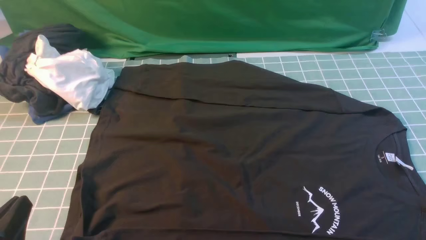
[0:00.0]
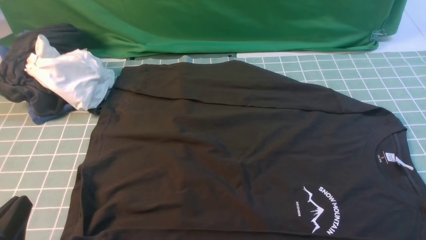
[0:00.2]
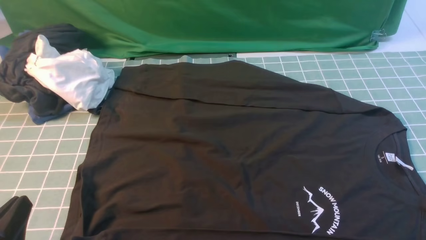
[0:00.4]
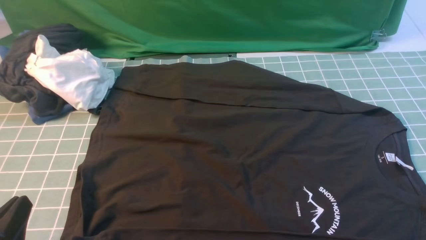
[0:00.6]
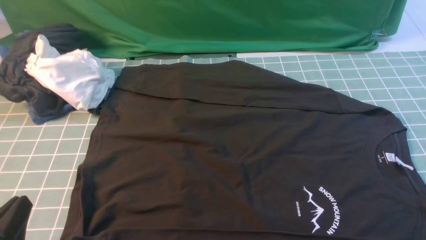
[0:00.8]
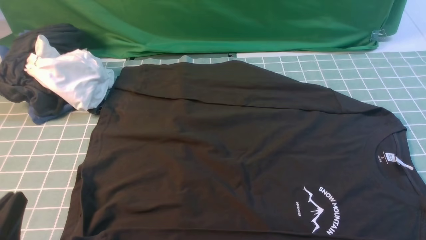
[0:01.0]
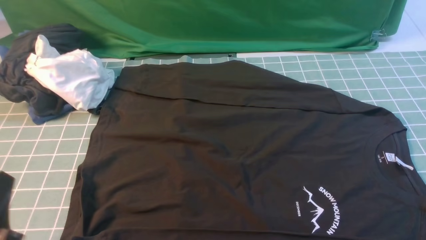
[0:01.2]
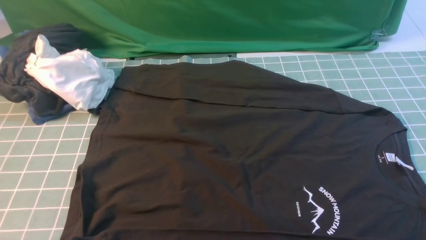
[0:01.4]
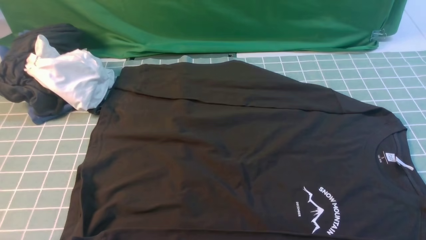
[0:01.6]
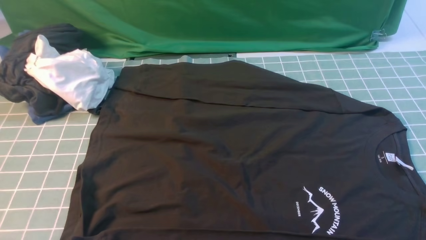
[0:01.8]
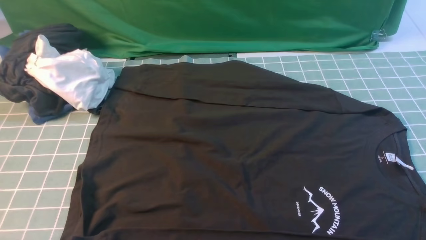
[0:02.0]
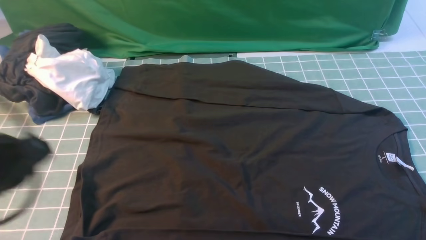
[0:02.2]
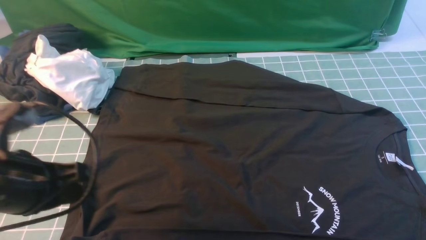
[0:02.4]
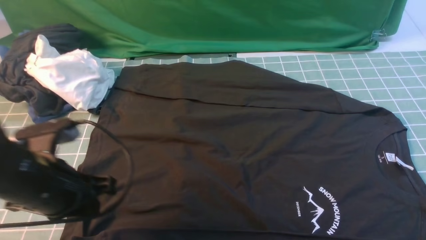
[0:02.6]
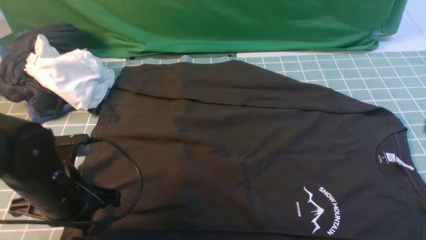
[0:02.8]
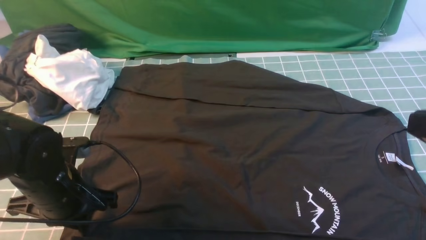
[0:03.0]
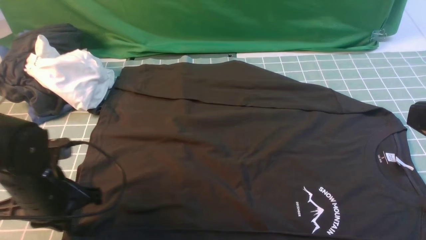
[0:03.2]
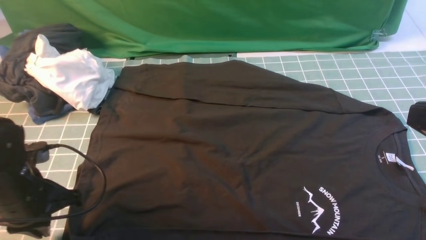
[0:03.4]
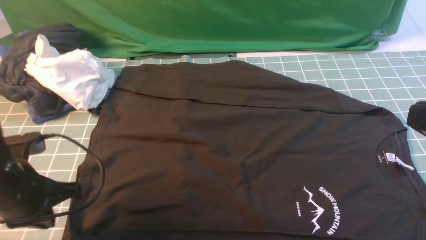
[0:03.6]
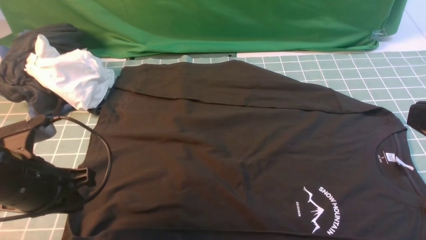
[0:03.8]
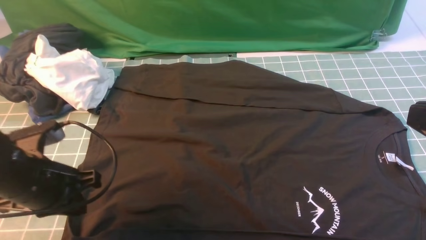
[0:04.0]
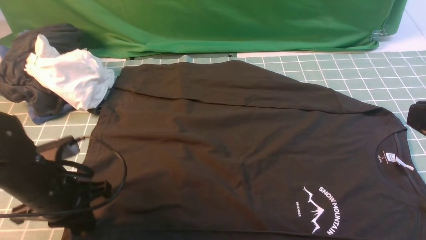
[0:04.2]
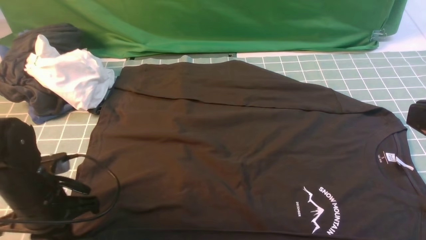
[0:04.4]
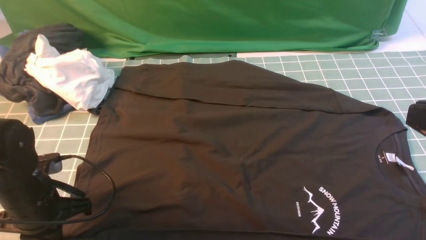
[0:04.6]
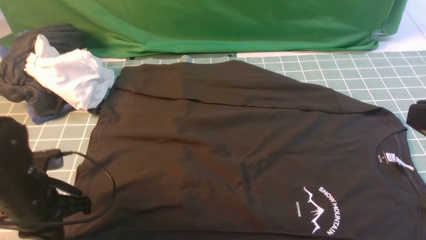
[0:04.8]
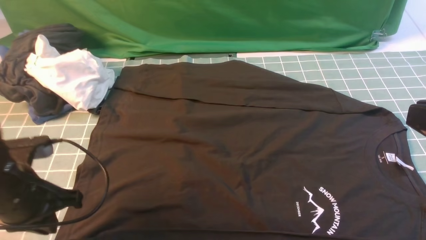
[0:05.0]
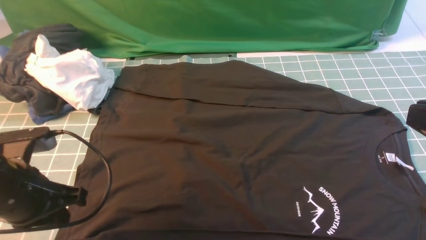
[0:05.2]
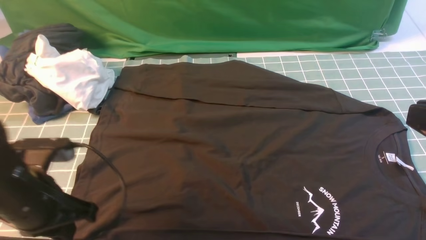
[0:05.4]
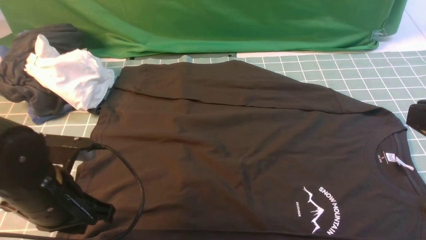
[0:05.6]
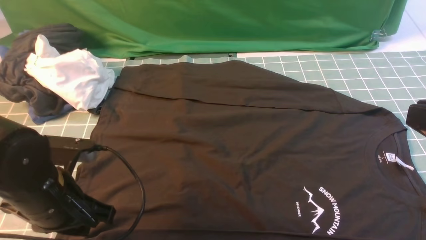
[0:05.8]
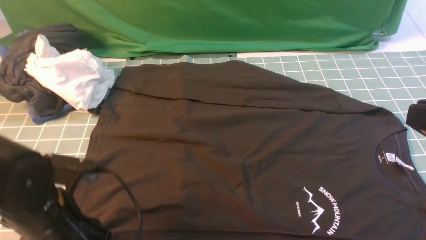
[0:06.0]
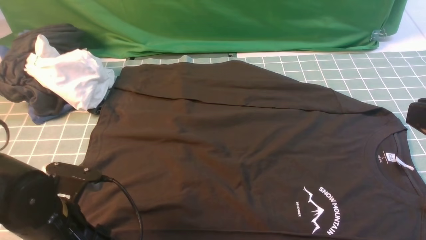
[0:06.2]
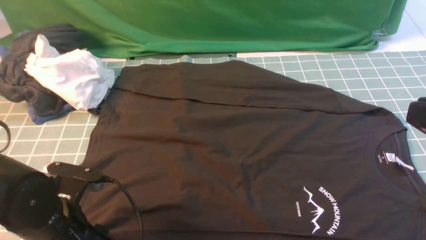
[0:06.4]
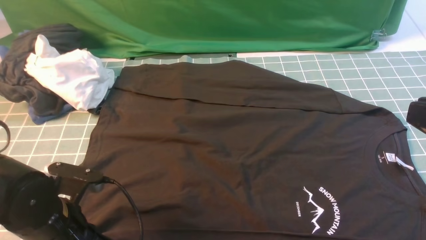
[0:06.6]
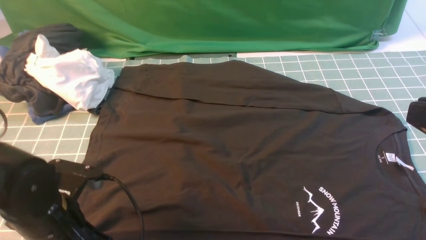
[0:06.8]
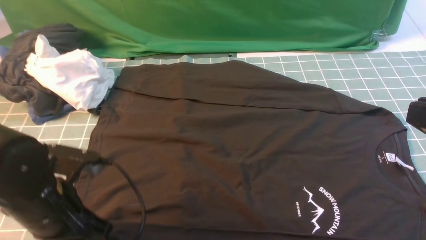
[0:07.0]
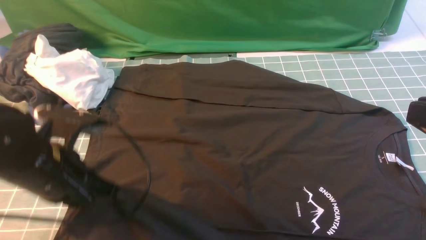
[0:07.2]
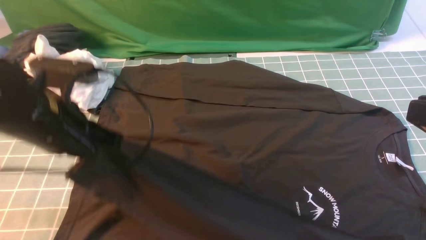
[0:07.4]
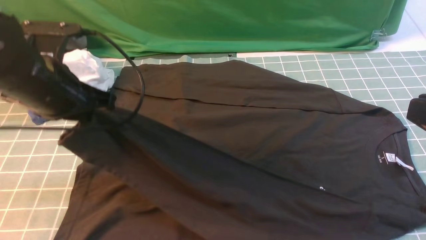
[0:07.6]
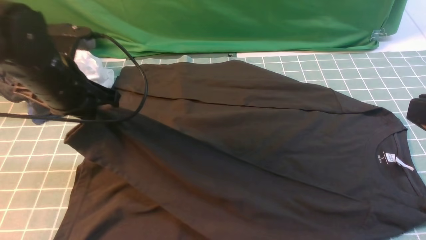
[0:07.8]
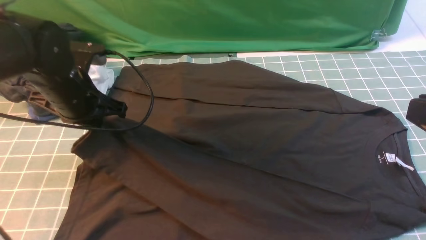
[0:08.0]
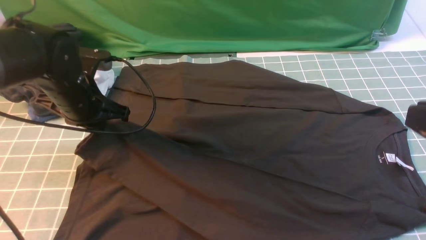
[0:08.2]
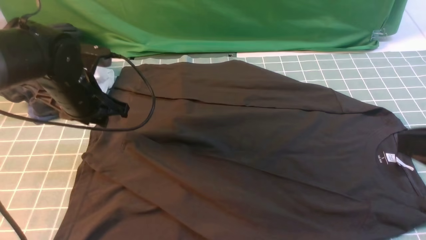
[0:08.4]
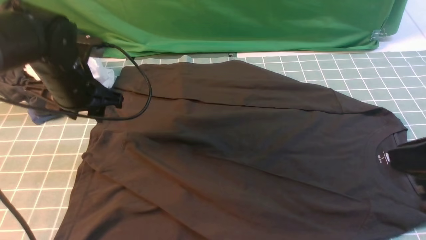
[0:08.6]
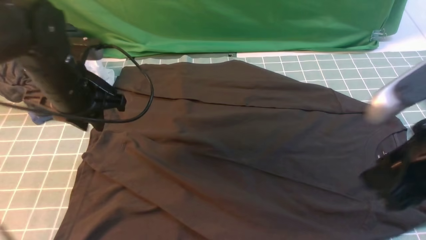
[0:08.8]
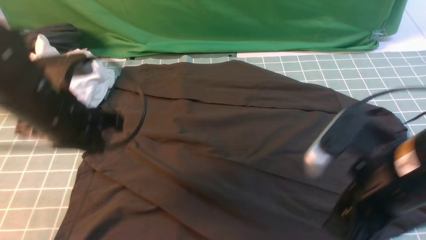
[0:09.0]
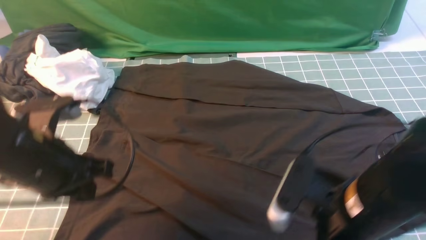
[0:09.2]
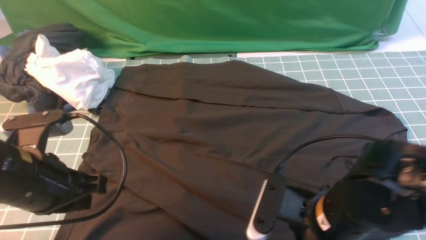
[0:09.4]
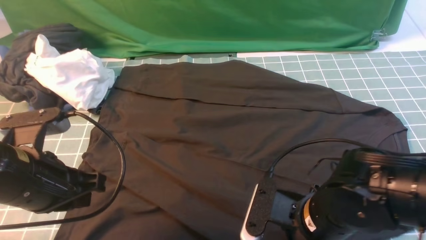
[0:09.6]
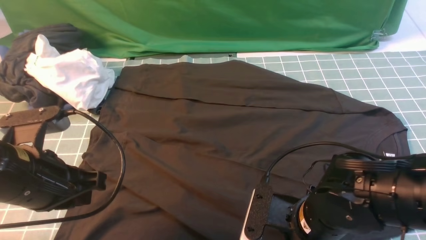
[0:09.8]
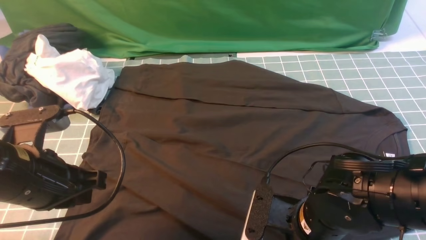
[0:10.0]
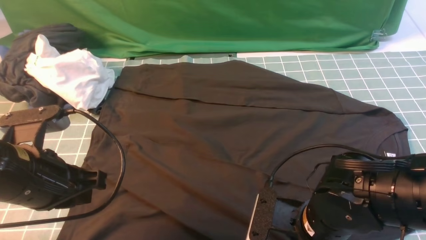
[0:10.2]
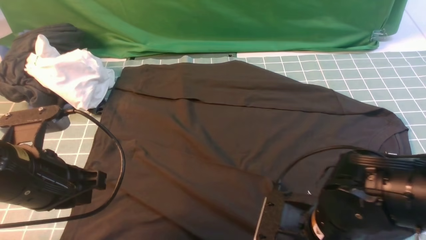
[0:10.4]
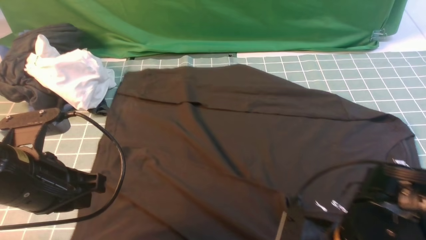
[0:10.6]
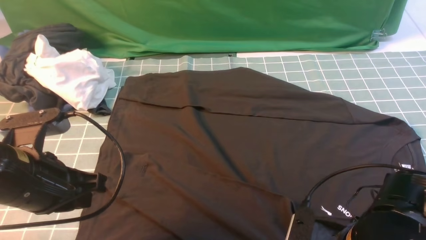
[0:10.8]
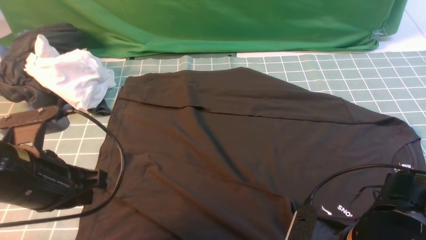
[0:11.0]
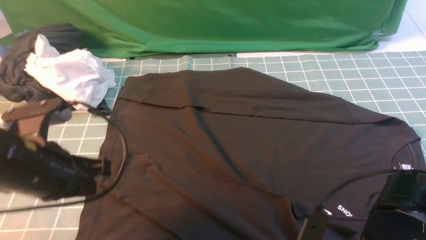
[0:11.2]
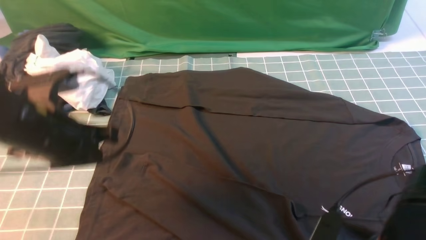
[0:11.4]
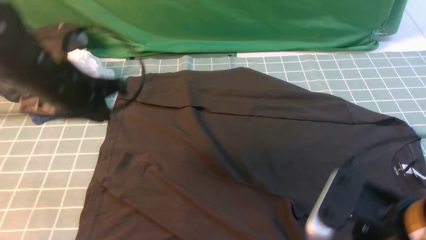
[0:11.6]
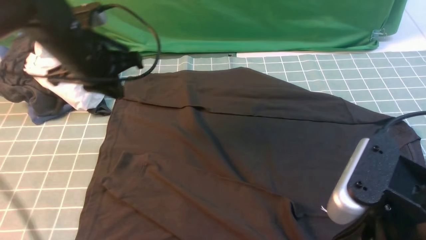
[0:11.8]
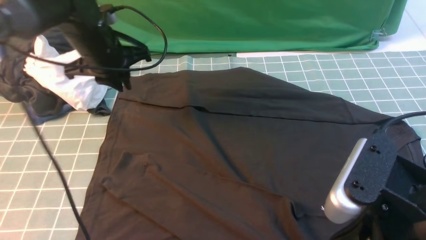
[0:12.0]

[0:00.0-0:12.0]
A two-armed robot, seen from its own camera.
Step, 0.0 to 7.0 s: use the left arm to clamp the cuff closest to it.
Step, 7.2 to 8.6 s: use the left arm to drag and place the cuff at the centered position on the left edge of the fabric.
0.0 to 1.6 s: The left gripper goes approximately 5 cm upward.
1.6 to 3.0 s: The left gripper goes roughly 20 cm forward and downward, while the right gripper travels upward and to the left by some 15 cm, and closes.
3.0 to 4.4 s: There are only small adjustments of the grippers.
4.4 to 6.0 s: The left gripper moves about 5 cm, and opens up.
6.0 to 7.6 s: The left gripper heads upward and forward, covering roughly 15 cm, and closes up.
7.6 to 9.0 s: The right gripper goes roughly 15 cm downward, to the left and forward, and opens up. Meanwhile the left gripper goes forward and returns, approximately 5 cm each way, and opens and closes again.
9.0 to 10.4 s: The right gripper goes some 10 cm downward, and closes, while the left gripper shifts roughly 5 cm backward.
10.4 to 12.0 s: The left gripper is displaced forward by roughly 25 cm. The right gripper heads upward, covering some 15 cm, and opens, then closes again.

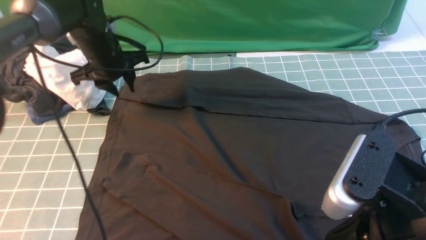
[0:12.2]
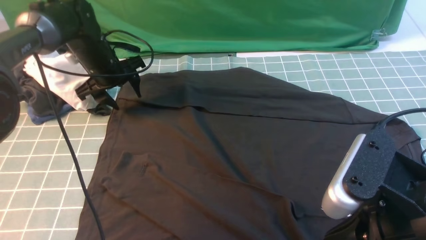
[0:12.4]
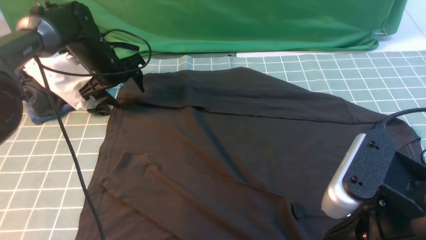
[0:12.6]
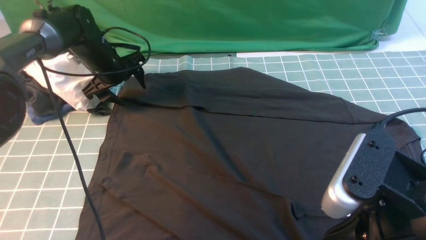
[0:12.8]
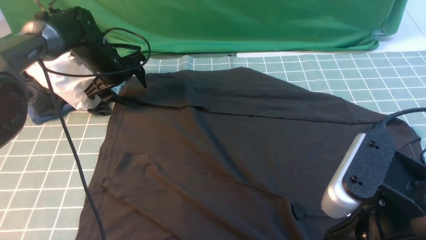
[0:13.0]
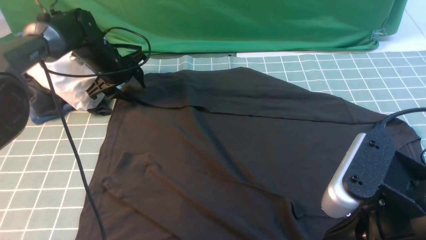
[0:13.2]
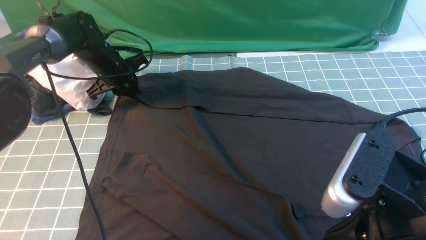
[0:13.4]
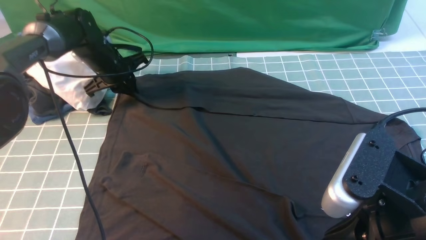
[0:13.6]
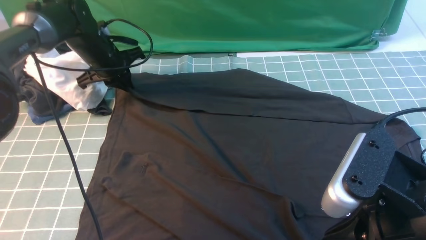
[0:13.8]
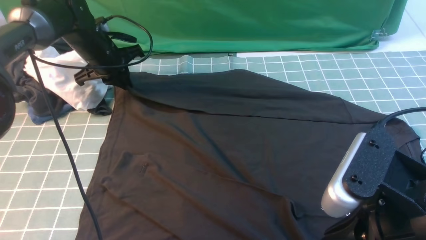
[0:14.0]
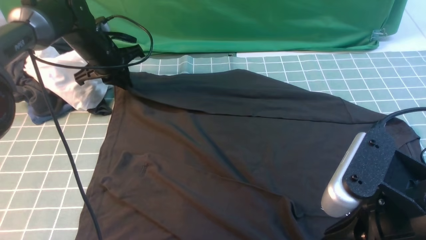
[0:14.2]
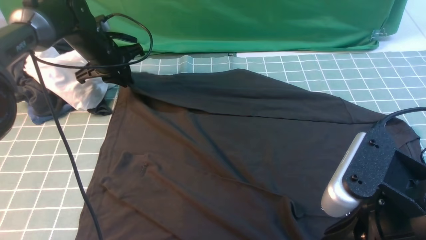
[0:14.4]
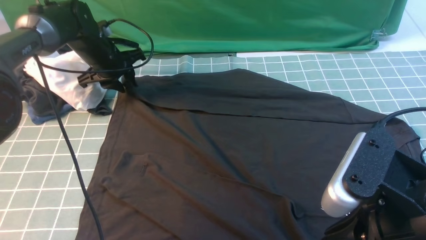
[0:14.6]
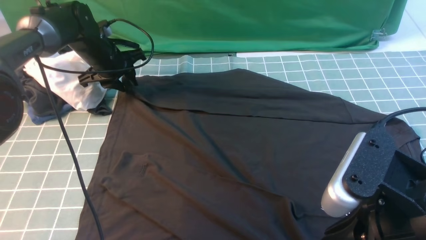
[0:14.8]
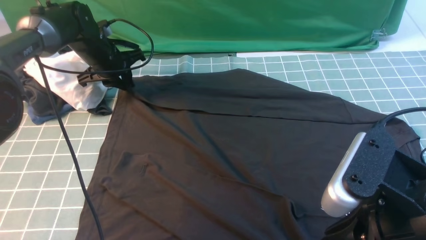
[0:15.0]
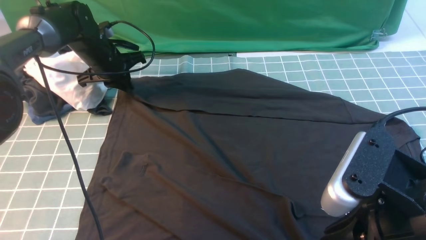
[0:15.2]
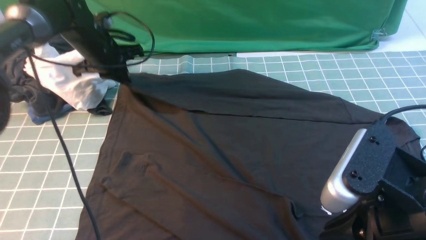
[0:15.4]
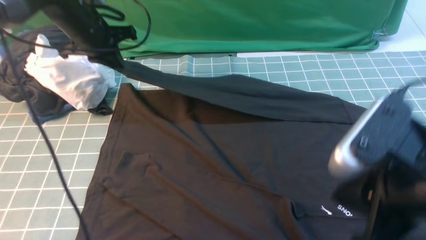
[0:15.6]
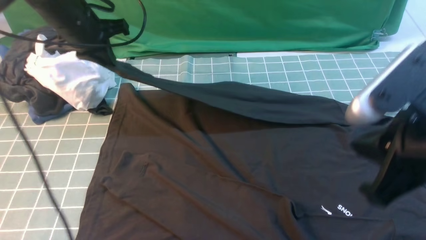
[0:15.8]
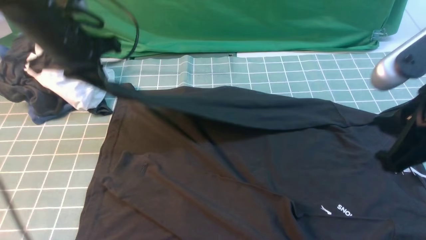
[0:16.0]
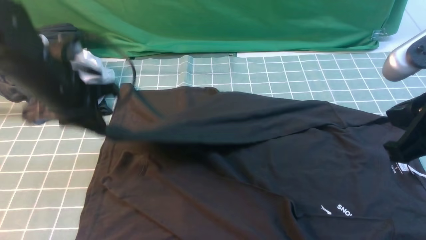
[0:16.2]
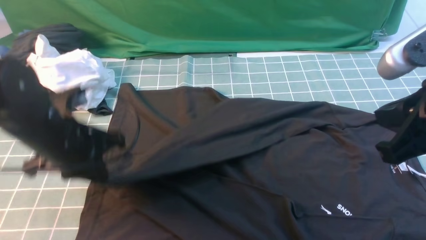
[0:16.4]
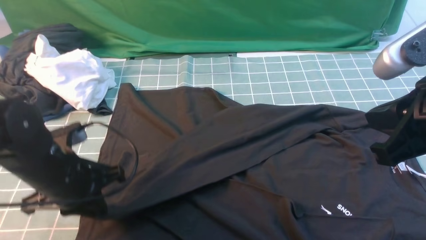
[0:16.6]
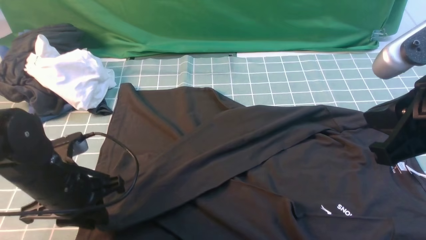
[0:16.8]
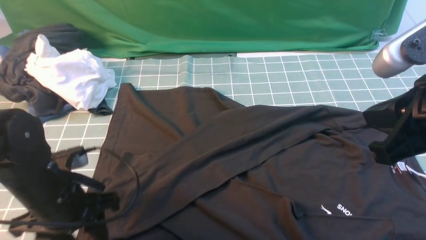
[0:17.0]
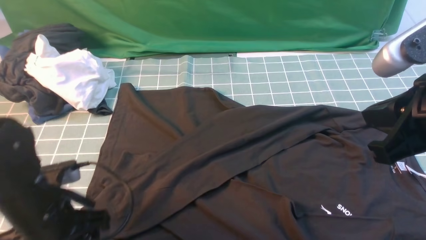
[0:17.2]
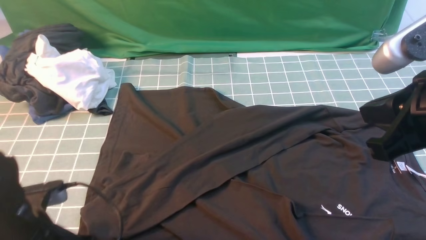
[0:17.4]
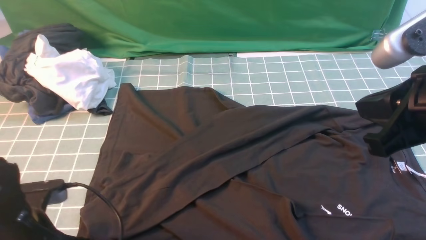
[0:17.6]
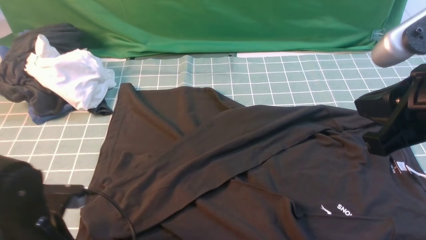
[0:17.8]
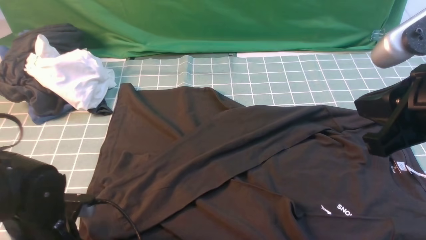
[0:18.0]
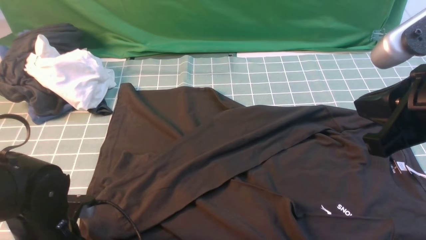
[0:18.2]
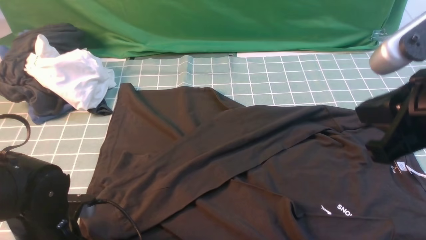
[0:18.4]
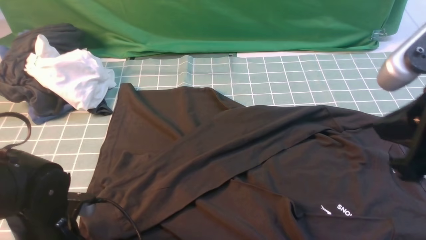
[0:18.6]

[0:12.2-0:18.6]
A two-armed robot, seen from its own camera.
Step, 12.2 to 15.2 s: use the left arm to clamp the cuff farthest from it.
Step, 15.6 to 17.0 s: use the left arm to drag and drop the cuff onto the cuff closest to the left arm.
12.2 to 13.8 s: The left gripper closes up.
13.8 to 15.4 s: The left gripper opens and closes again.
15.4 to 17.0 s: The right gripper is displaced forward by roughly 5 cm; the left gripper heads backward, covering some 30 cm, and opens its fingers.
17.0 to 18.6 s: The left gripper moves roughly 5 cm, and closes its fingers.
